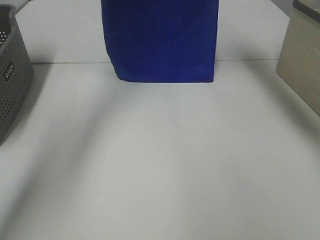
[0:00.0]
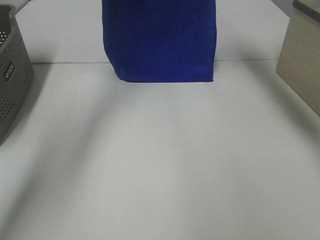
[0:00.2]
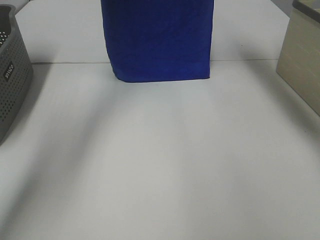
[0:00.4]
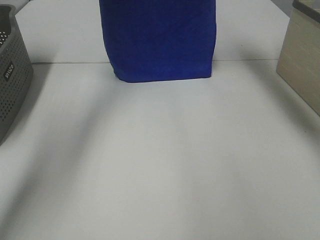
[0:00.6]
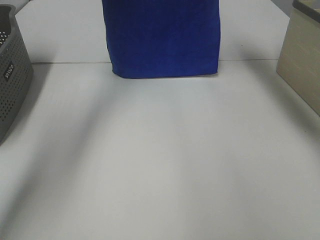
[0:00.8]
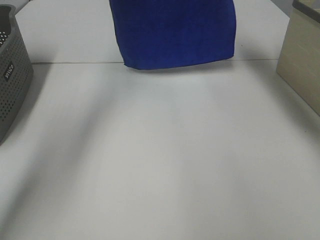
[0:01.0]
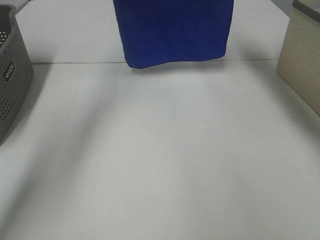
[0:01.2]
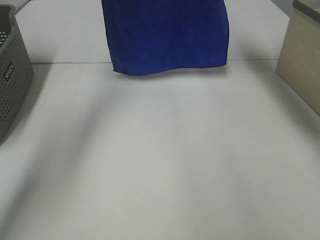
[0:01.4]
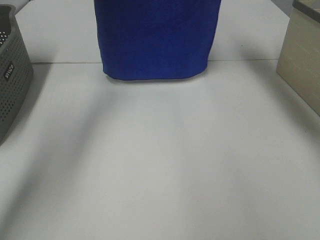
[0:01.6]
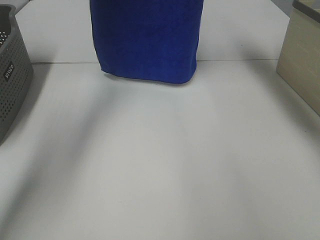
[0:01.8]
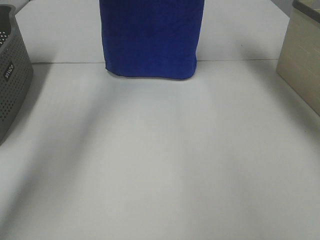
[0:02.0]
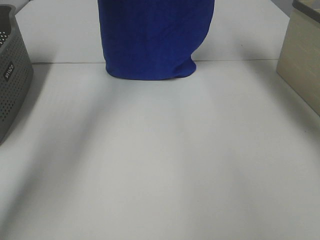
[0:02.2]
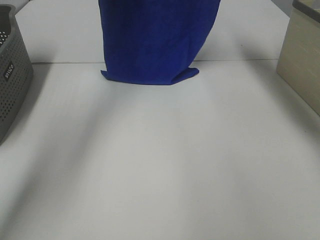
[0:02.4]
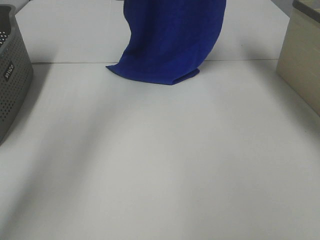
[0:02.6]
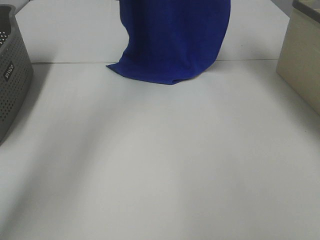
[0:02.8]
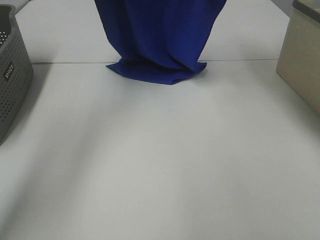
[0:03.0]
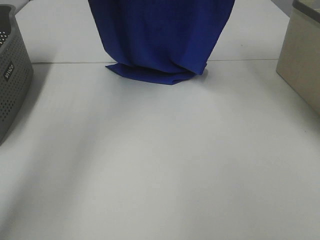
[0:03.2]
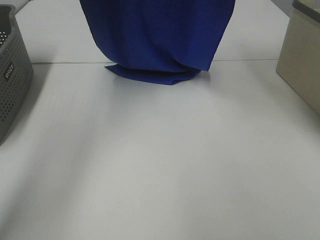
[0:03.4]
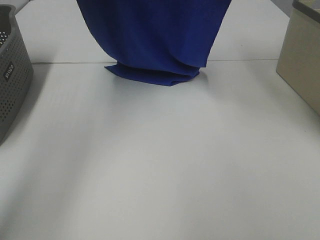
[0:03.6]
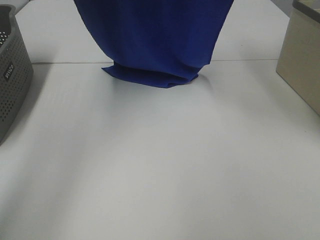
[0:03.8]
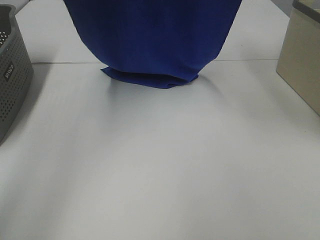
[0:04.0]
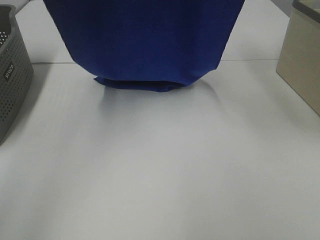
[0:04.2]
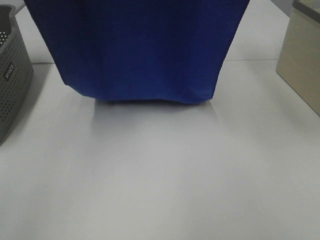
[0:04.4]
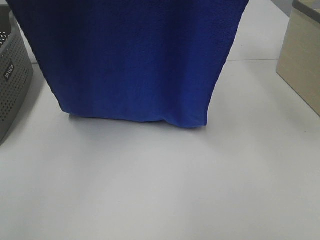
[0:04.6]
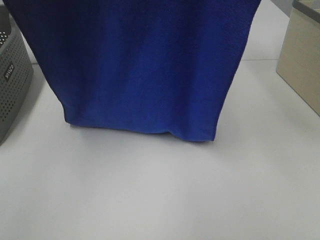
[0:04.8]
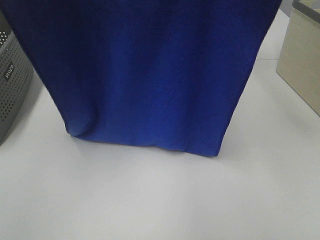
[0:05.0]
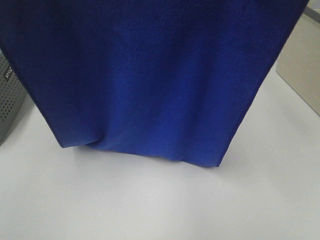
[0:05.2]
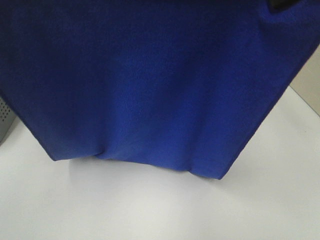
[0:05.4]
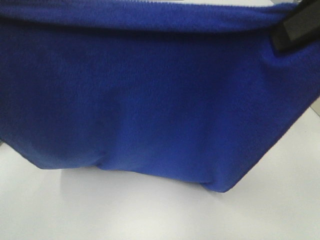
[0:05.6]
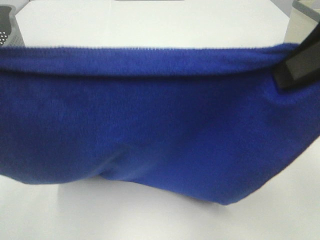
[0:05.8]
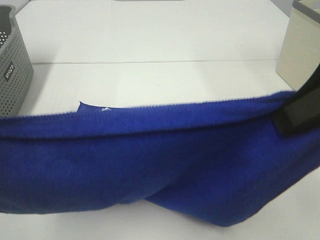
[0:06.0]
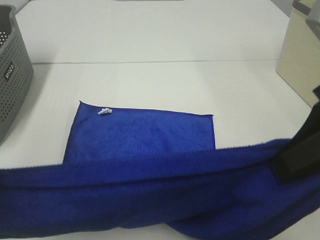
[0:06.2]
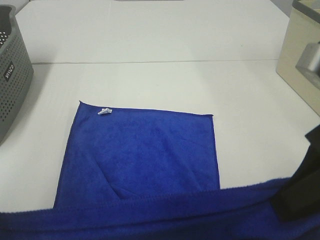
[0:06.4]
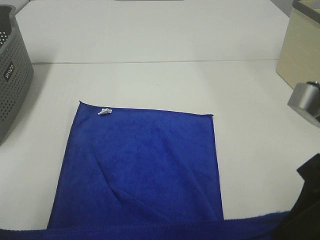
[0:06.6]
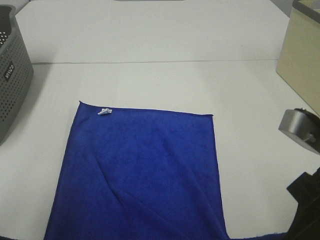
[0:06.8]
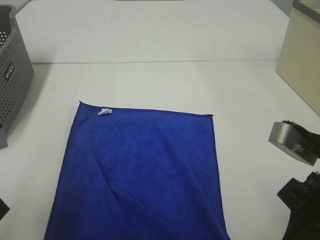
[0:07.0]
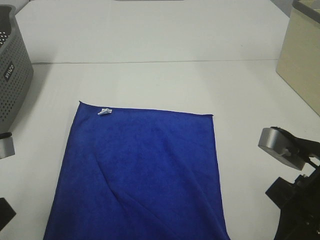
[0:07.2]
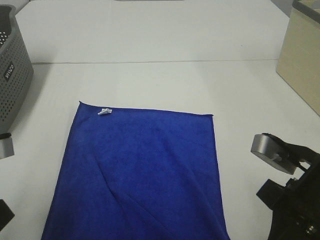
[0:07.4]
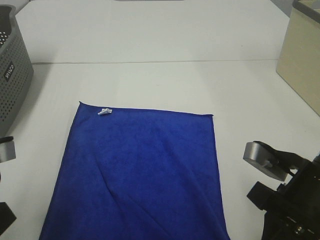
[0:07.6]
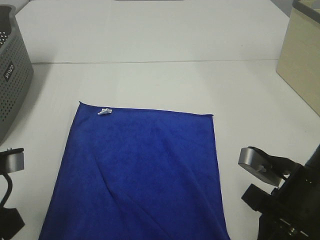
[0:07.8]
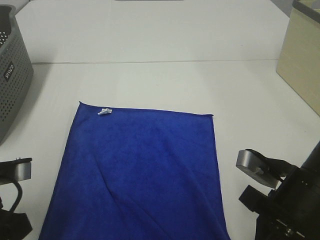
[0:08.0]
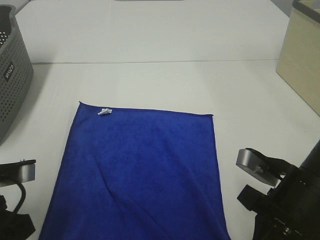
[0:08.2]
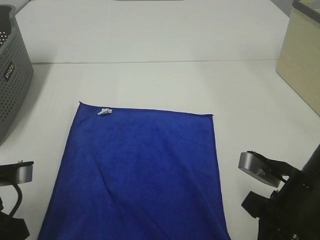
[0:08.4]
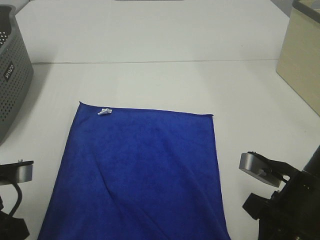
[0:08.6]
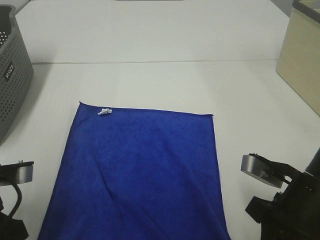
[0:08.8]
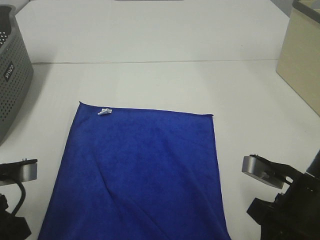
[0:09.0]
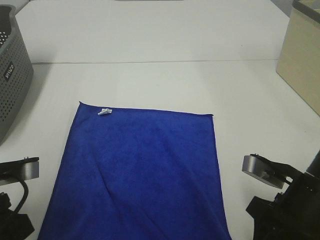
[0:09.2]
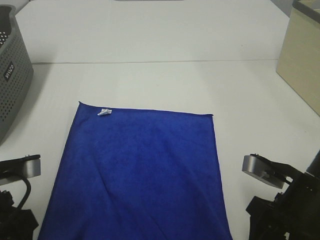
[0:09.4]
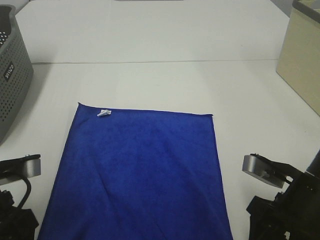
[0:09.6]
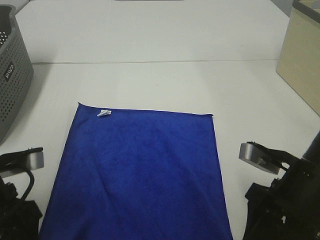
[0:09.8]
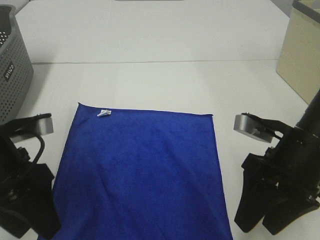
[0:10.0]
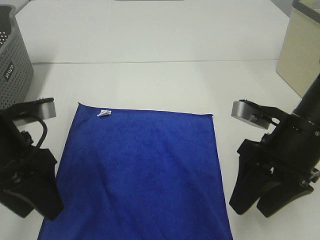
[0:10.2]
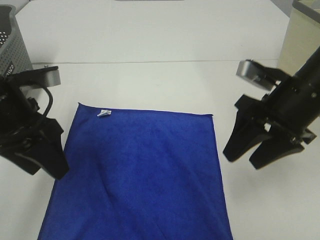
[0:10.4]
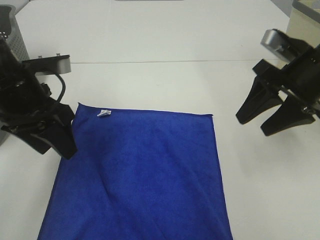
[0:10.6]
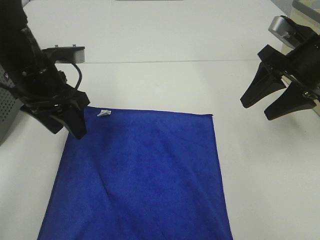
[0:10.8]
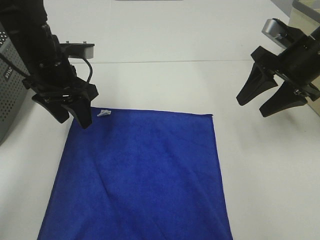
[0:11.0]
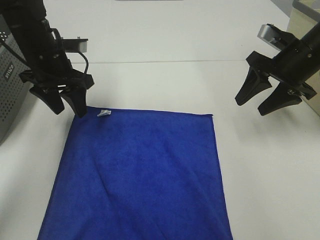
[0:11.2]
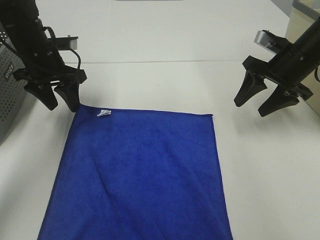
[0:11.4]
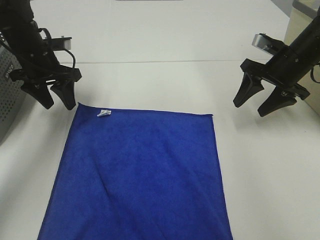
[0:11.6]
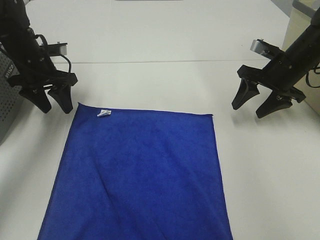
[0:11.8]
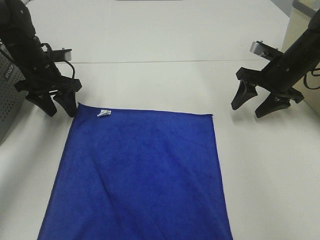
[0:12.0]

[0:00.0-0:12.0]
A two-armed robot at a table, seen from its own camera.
Task of the whole recording: Remove the towel and place it.
Step, 0:00.0 to 0:04.6: Left hand: spread the blue towel flat on the table.
Step, 0:00.0 to 0:04.6: Right hand: spread the blue towel flat on the table.
0:00.0 to 0:01.6: The grippers stay close to where they were, moving slightly.
0:01.6 to 0:03.0: The right gripper shifts about 5 cm downward.
0:03.0 to 0:04.4: The two grippers go roughly 20 cm backward and upward.
0:04.4 to 0:06.0: The two grippers go about 20 cm downward and backward.
0:06.0 to 0:07.6: The grippers both shift downward by some 15 cm.
0:07.6 to 0:09.0: The grippers move only a little.
0:09.0 to 0:10.4: The two grippers go some 10 cm forward and upward. The right gripper opens its fingers, while the left gripper opens its fingers.
0:10.4 to 0:12.0: The right gripper moves forward, downward and to the right, some 20 cm. The left gripper shifts roughly 20 cm forward and downward.

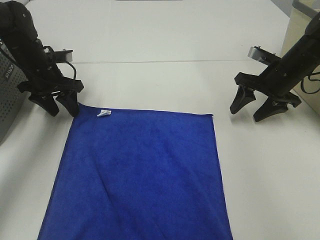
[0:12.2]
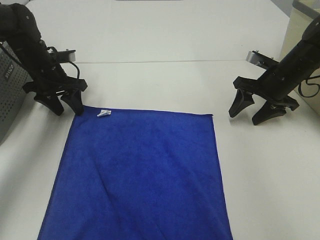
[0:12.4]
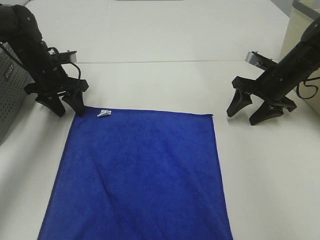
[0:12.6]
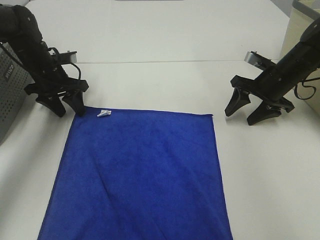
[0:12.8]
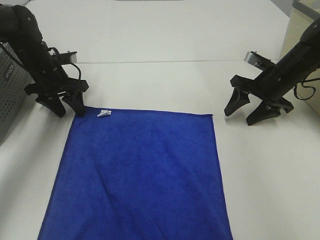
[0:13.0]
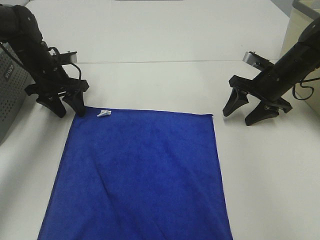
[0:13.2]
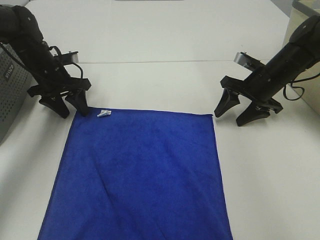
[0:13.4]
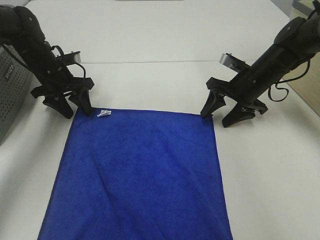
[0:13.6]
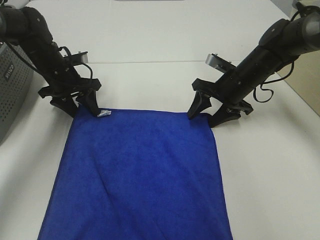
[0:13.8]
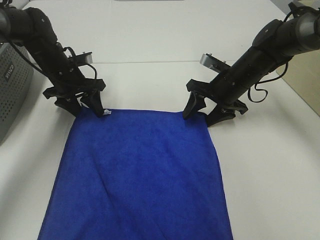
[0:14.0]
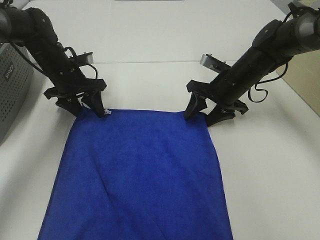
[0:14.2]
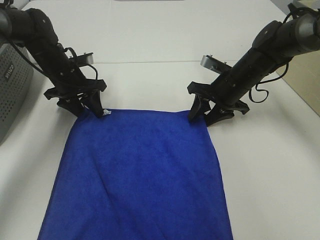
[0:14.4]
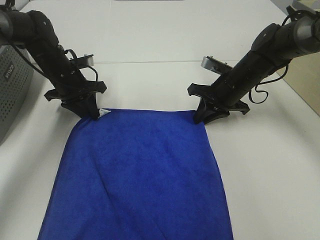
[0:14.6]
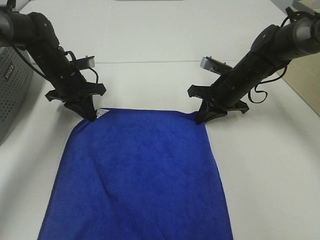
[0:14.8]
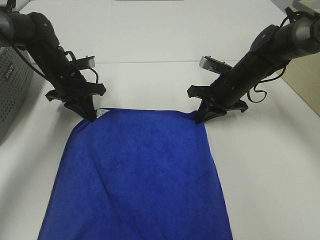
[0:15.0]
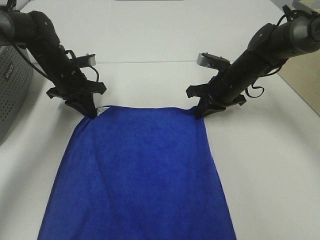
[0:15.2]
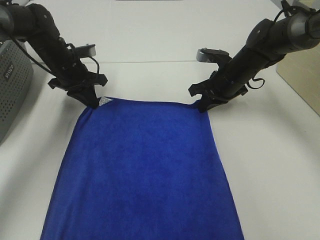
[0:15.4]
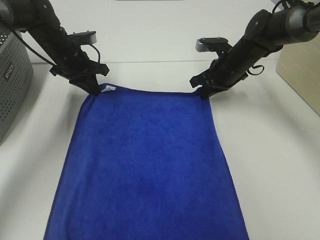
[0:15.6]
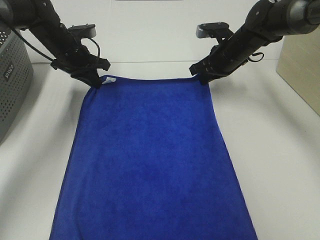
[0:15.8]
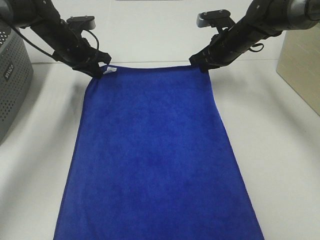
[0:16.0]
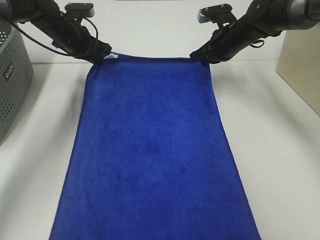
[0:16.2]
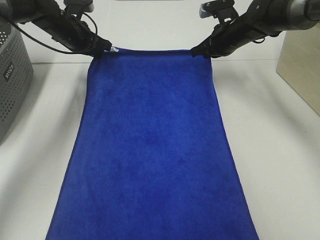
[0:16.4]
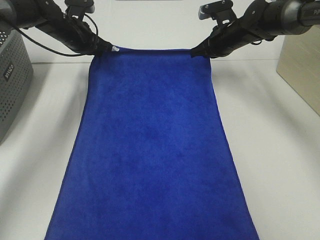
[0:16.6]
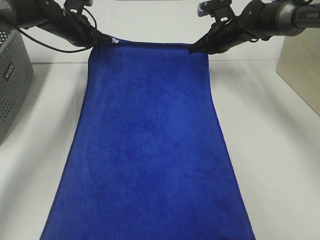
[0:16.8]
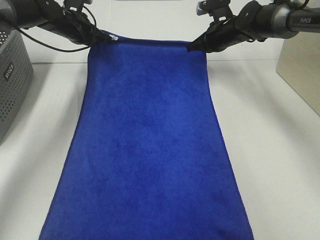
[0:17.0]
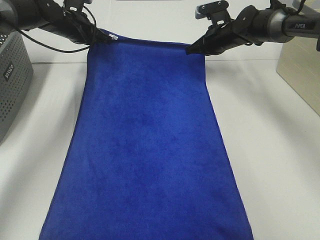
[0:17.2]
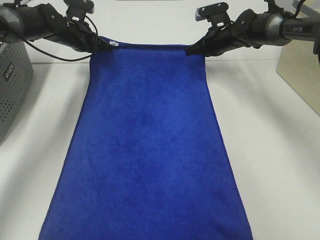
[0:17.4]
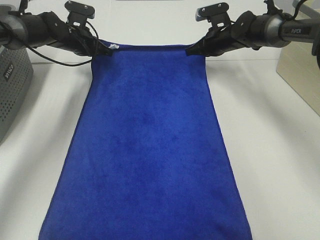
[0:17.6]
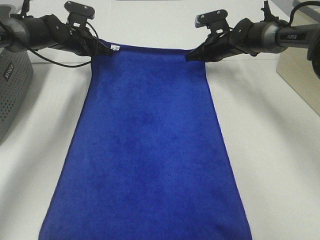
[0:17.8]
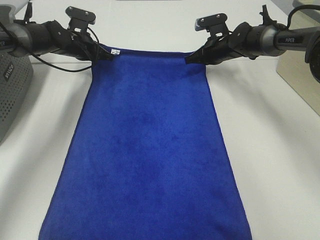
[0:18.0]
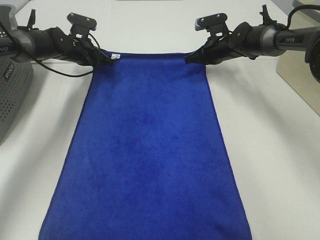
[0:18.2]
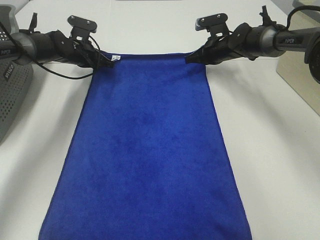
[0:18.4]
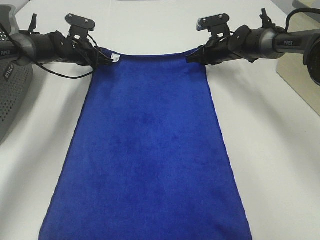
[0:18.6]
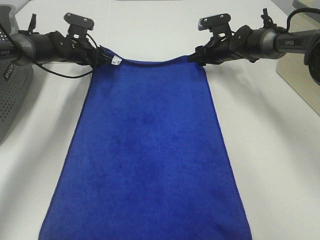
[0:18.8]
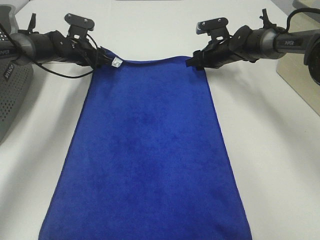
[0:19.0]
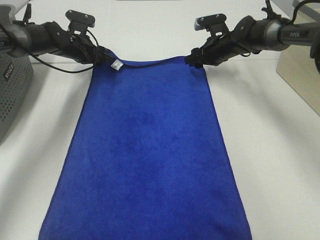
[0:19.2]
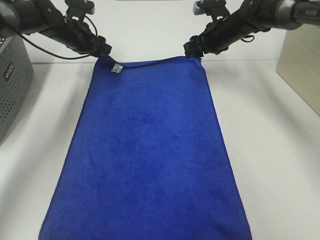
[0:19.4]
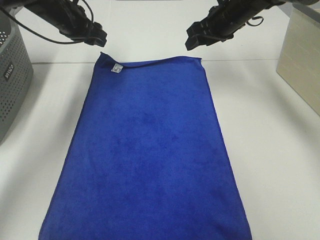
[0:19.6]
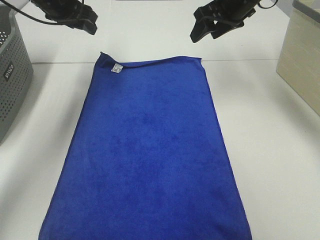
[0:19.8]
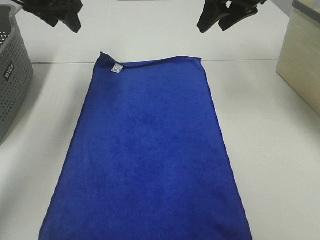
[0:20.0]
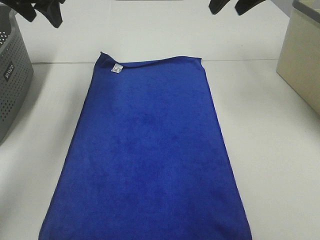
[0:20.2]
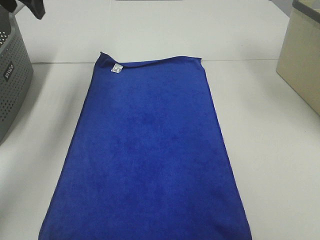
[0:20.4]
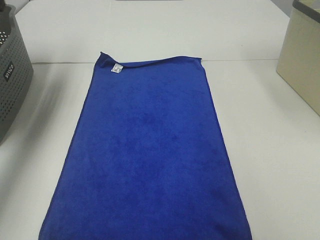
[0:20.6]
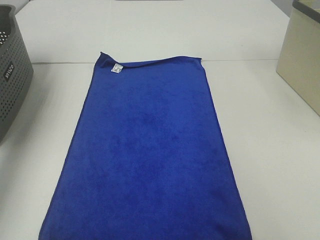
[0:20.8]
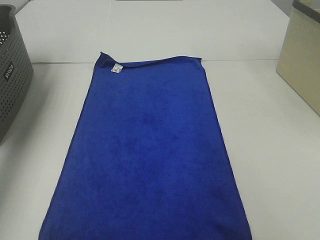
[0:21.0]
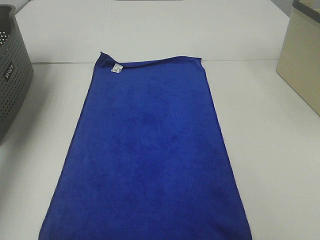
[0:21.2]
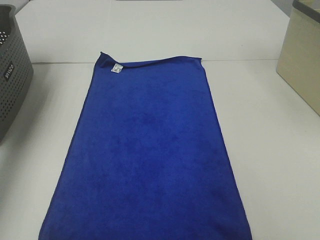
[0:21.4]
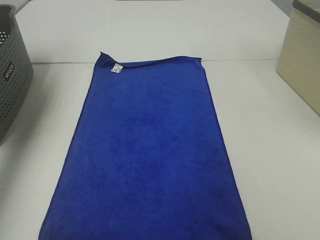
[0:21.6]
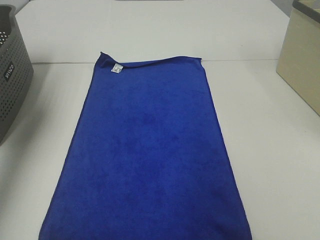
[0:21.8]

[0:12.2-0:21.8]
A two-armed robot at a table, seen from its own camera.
Task of the whole recording: Remove the towel and place it.
0:12.2 to 0:13.8: The right gripper travels to the left by some 10 cm.
0:13.8 to 0:15.4: The left gripper closes its fingers, while the right gripper closes.
0:15.4 to 0:17.0: The right gripper shifts about 10 cm forward. Meanwhile the left gripper goes roughly 10 cm forward and upward.
0:17.0 to 0:18.6: The right gripper changes place by about 5 cm, and opens up, while the left gripper moves downward, about 10 cm, and opens its fingers.
0:18.6 to 0:20.2: Both grippers travel together upward and backward, some 30 cm.
0:20.2 to 0:21.8: The left gripper travels to the left, backward and upward by approximately 20 cm, and opens its fingers. Meanwhile the right gripper travels backward, to the right and upward by about 20 cm.
